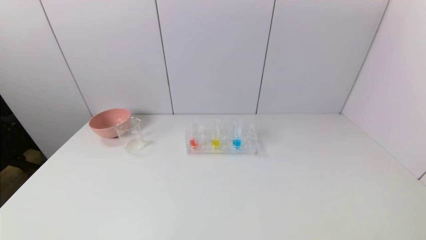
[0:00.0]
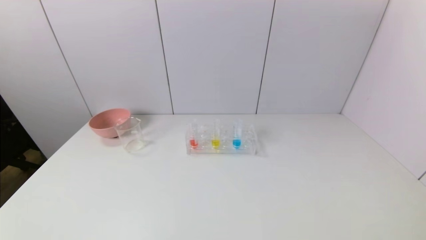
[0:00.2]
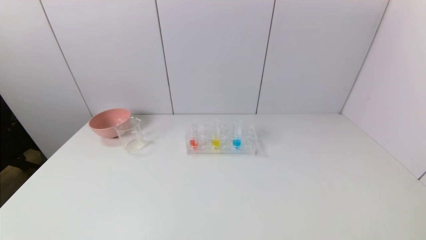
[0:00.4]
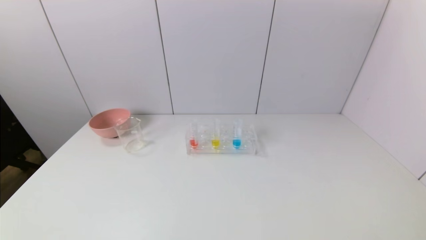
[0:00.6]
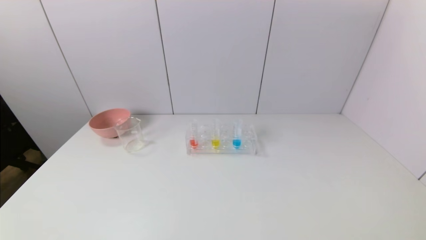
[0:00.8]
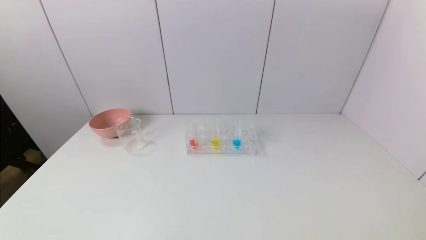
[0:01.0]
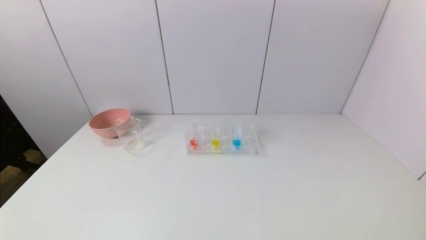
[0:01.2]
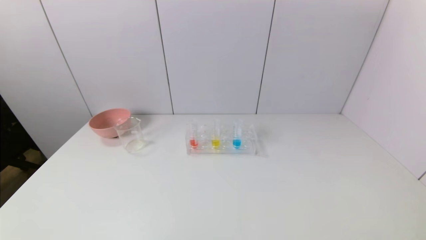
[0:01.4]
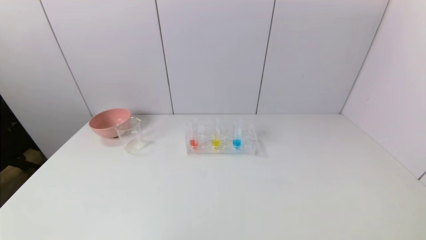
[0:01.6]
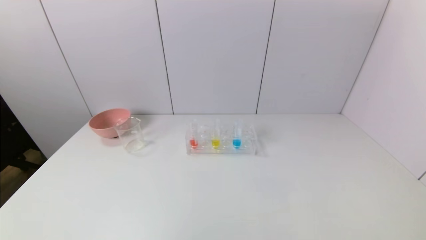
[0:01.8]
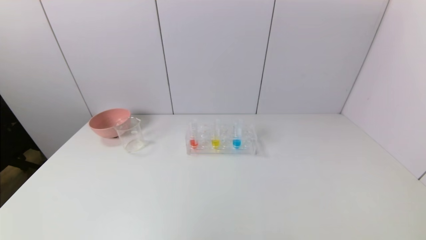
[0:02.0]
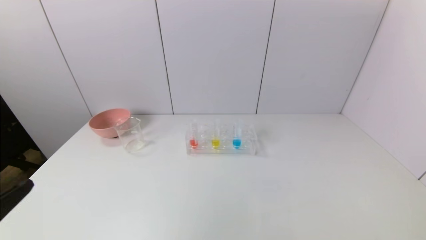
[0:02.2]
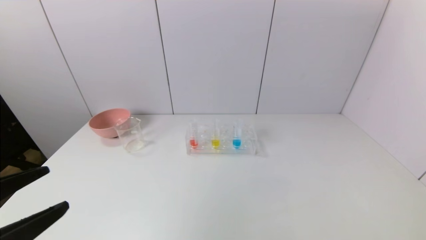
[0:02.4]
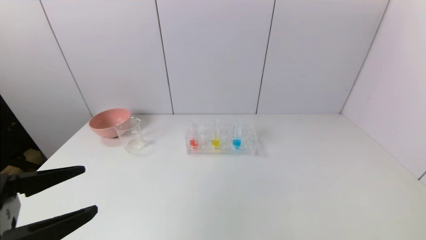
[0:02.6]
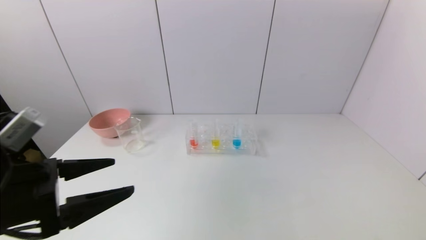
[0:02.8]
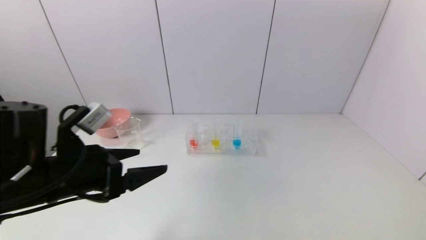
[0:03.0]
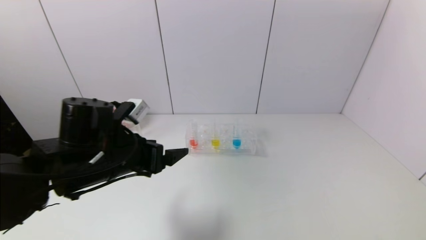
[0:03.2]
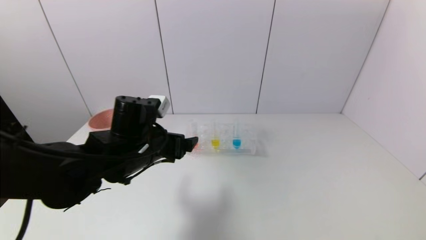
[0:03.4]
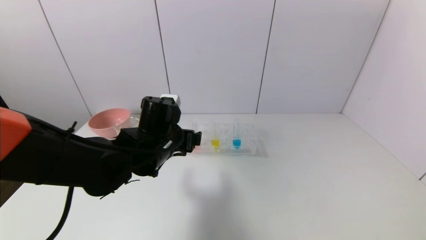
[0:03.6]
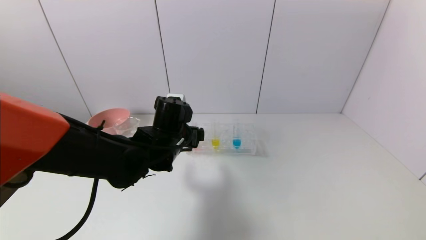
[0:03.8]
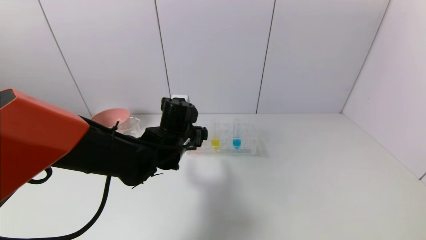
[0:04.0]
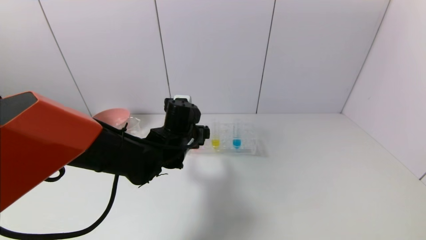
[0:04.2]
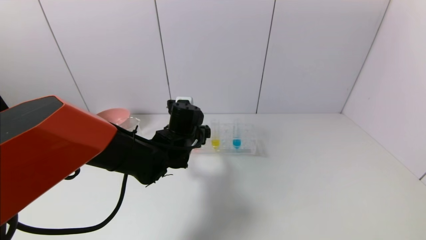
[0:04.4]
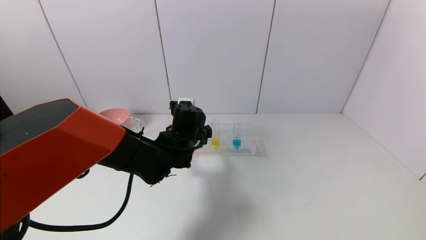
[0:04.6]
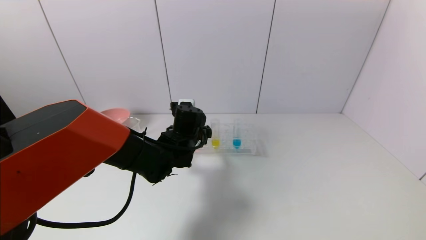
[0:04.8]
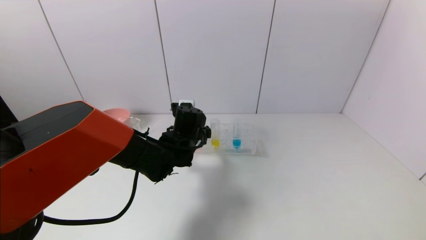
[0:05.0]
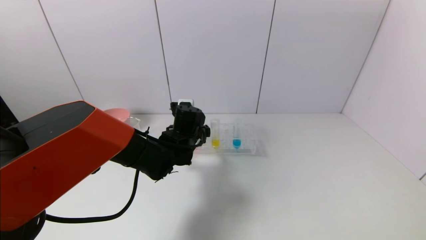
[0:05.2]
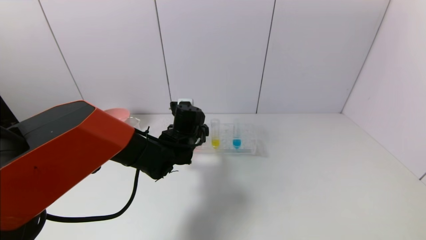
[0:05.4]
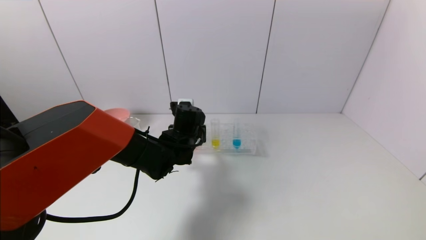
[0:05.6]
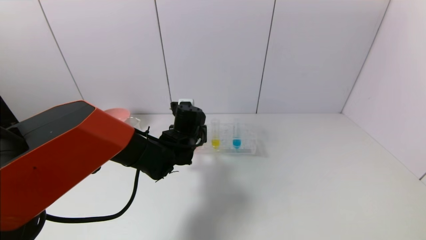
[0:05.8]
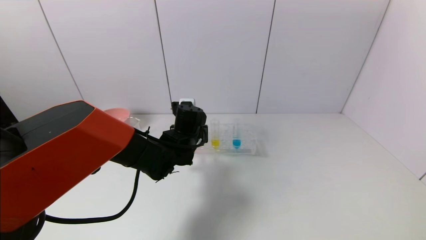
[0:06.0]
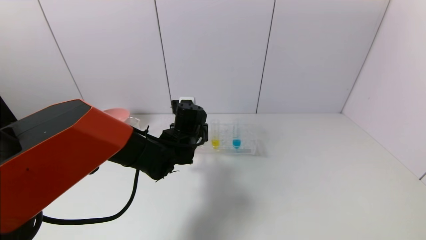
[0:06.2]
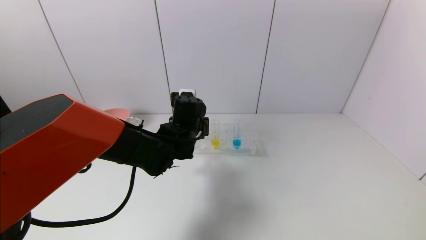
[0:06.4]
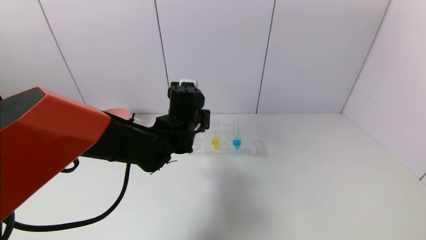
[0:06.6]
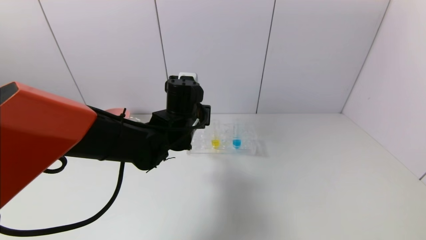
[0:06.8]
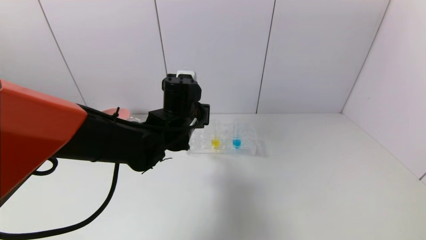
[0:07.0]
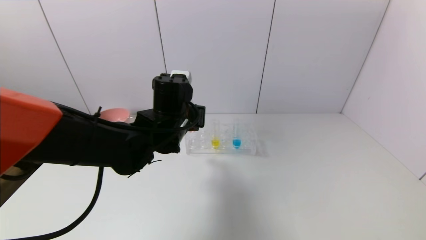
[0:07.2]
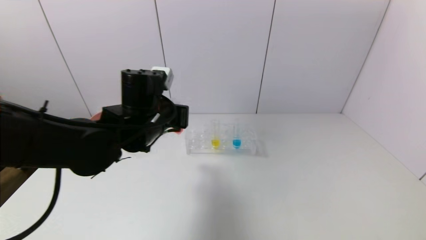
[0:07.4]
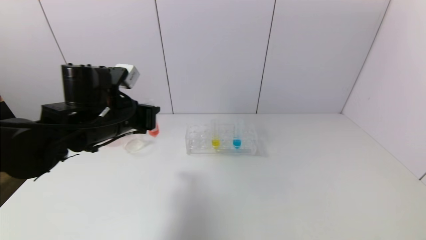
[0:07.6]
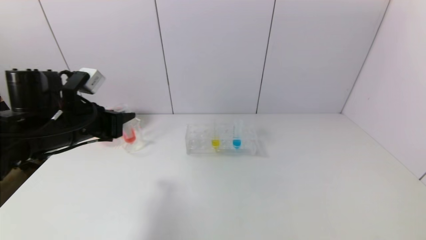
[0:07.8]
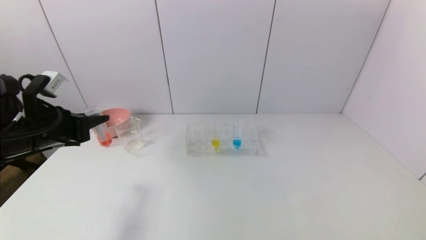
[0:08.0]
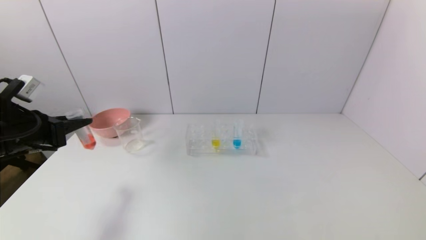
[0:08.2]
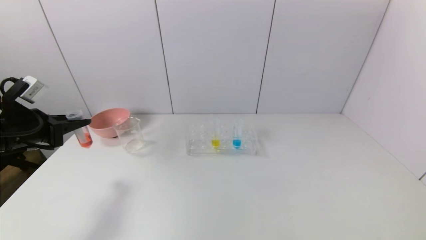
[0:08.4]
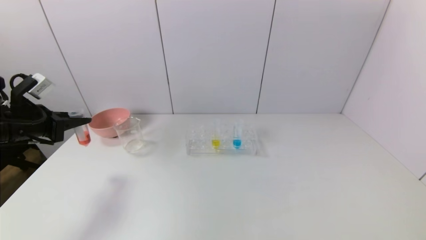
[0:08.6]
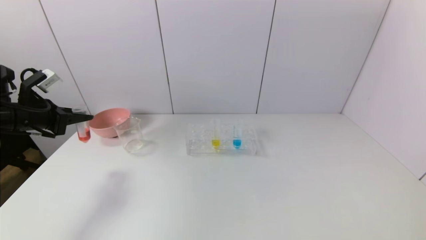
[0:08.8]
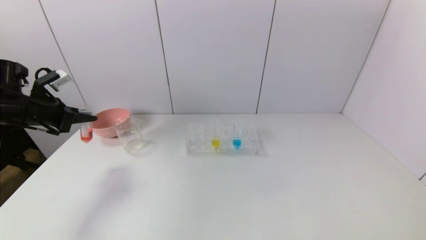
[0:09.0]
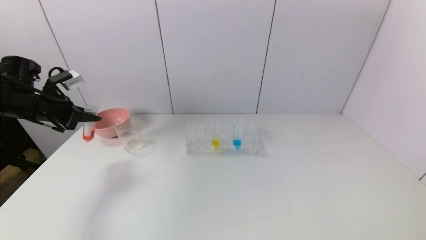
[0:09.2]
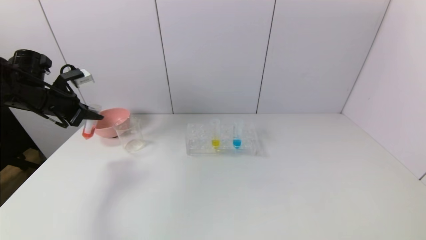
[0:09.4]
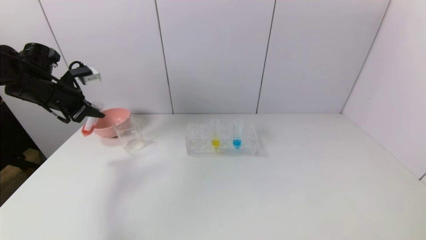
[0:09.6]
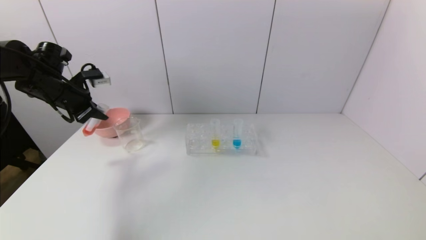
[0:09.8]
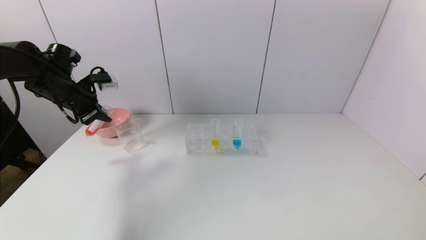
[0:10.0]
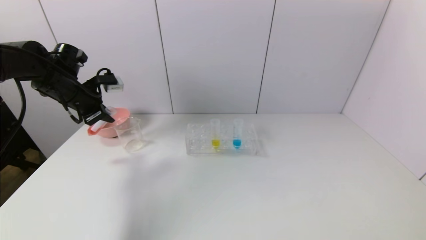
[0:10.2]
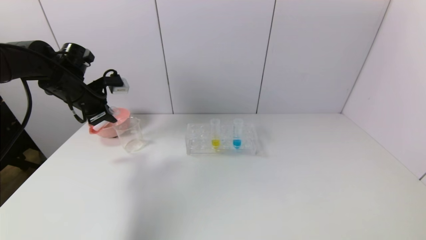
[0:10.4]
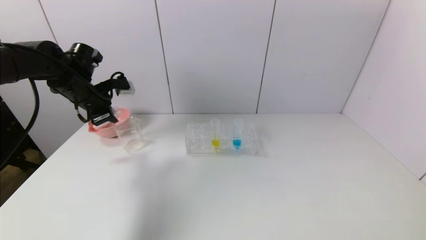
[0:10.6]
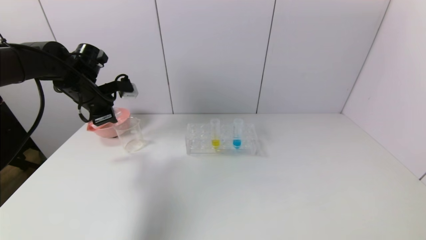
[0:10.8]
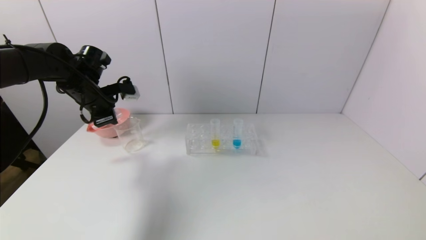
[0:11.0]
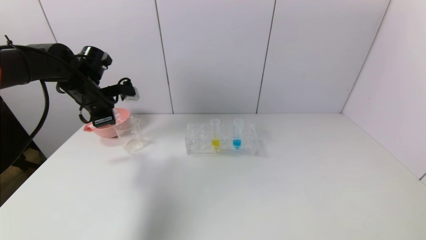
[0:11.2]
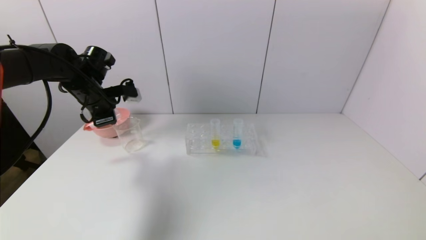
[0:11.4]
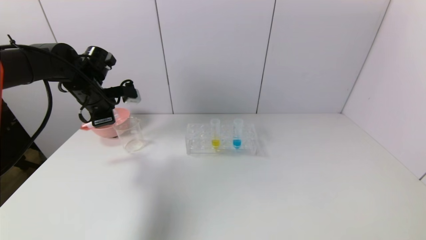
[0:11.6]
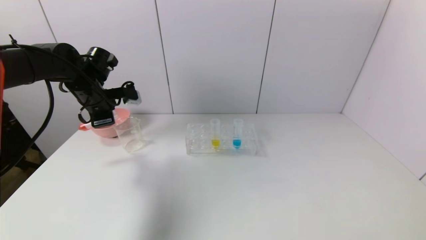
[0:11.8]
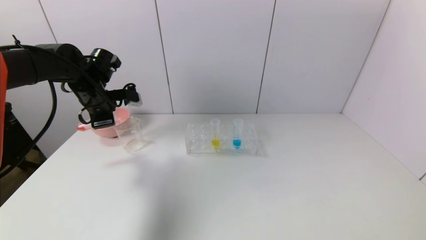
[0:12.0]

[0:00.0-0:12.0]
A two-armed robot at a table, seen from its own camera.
Task of the whole recording: pick up the test tube with yellow pigment and the test tube with red pigment by grippers and pour them into the beaker.
Step, 0:00.0 to 0:06.0: Grasp the red reagent with the left gripper.
0:01.6 to 0:03.0: The left gripper goes some 20 cm forward.
0:03.0 to 0:04.4: The left gripper is displaced forward, to the right and downward by about 20 cm.
0:04.4 to 0:06.0: The left gripper closes.
0:06.0 to 0:07.6: The left gripper moves to the left, upward and backward, approximately 20 cm.
0:07.6 to 0:09.0: The left gripper is displaced to the left by approximately 20 cm.
0:09.0 to 0:10.4: The left gripper travels to the right and forward by about 10 cm.

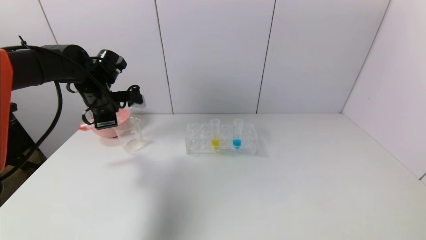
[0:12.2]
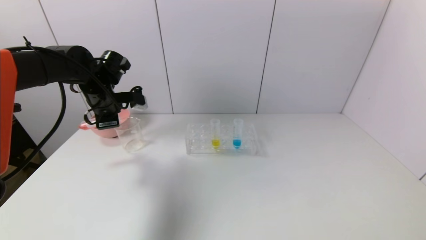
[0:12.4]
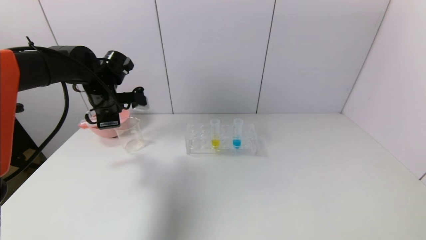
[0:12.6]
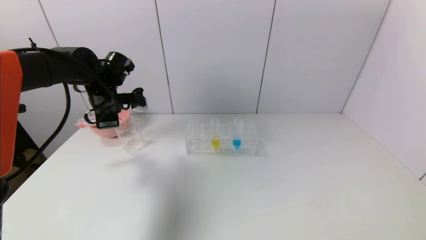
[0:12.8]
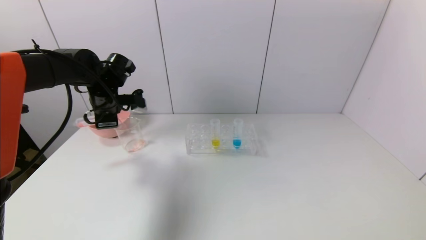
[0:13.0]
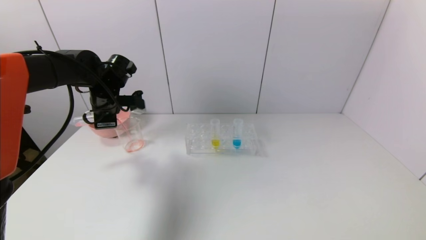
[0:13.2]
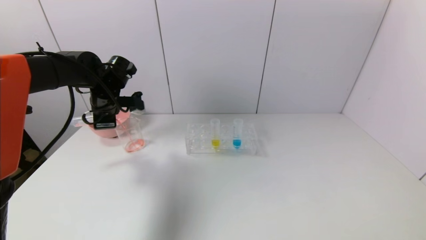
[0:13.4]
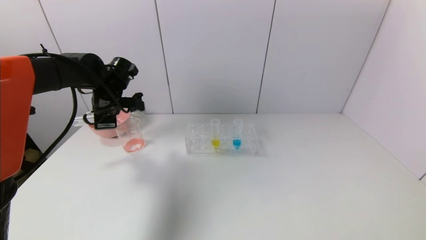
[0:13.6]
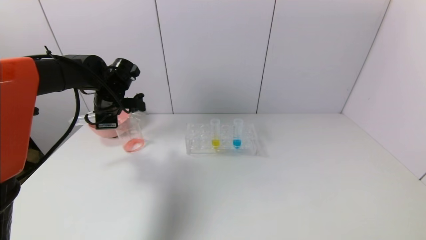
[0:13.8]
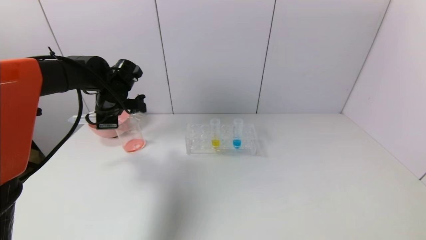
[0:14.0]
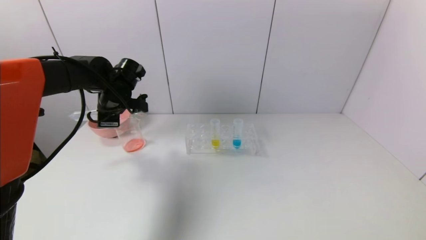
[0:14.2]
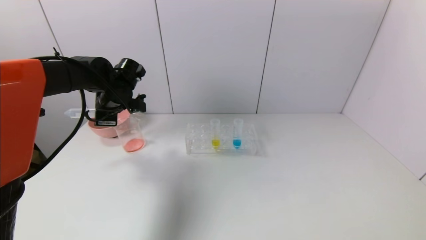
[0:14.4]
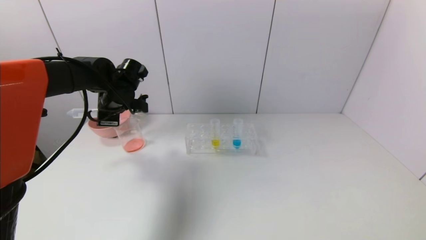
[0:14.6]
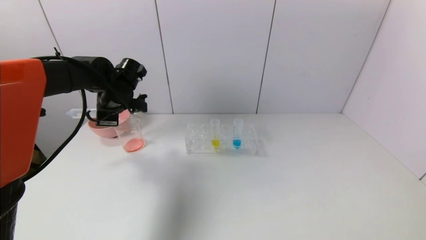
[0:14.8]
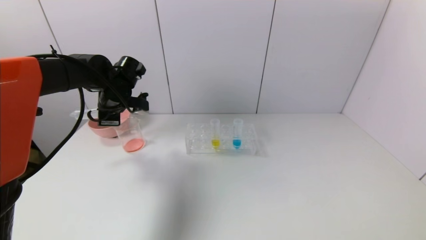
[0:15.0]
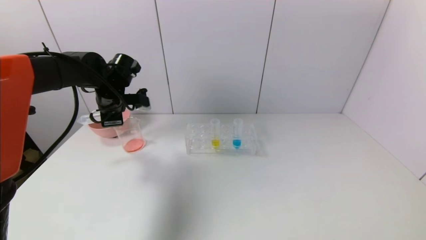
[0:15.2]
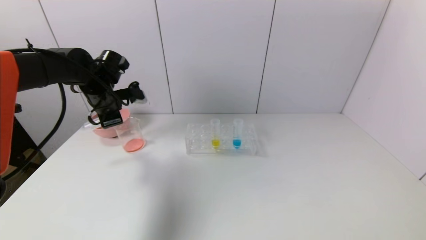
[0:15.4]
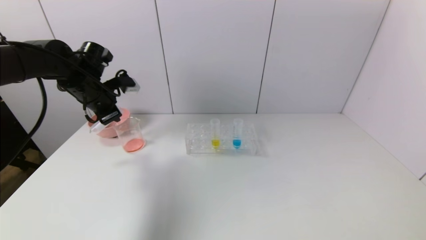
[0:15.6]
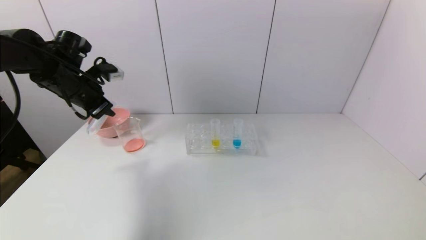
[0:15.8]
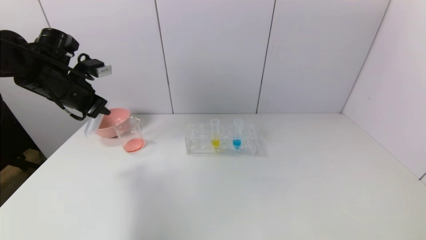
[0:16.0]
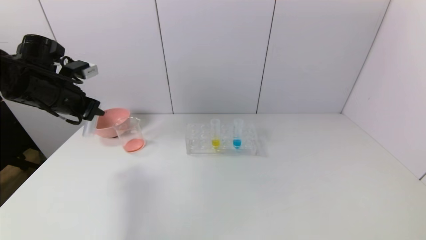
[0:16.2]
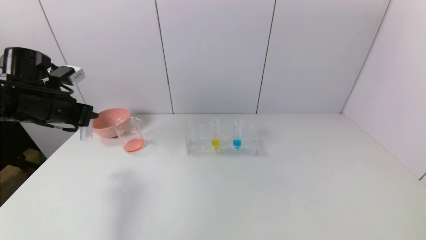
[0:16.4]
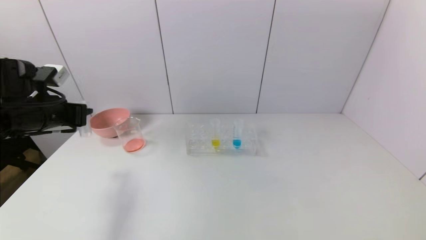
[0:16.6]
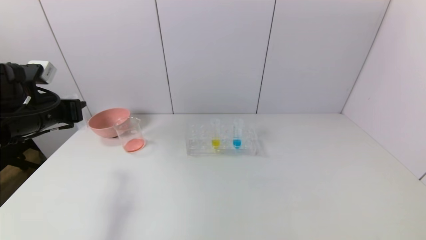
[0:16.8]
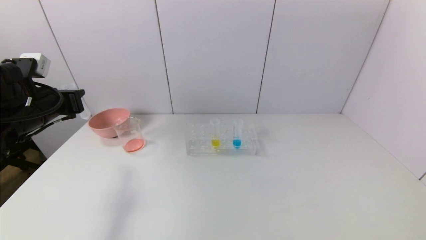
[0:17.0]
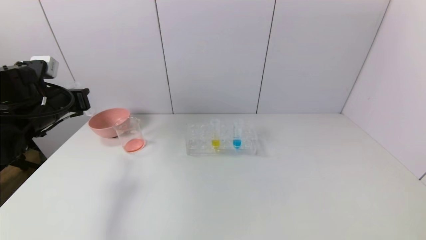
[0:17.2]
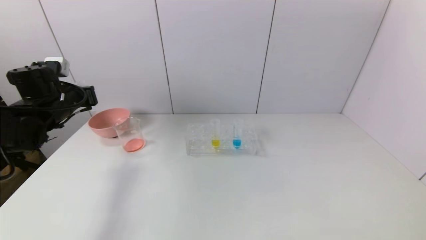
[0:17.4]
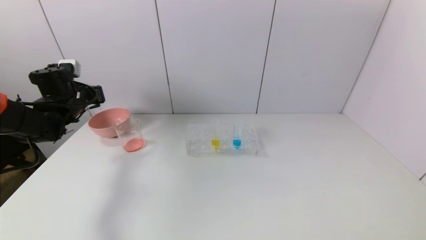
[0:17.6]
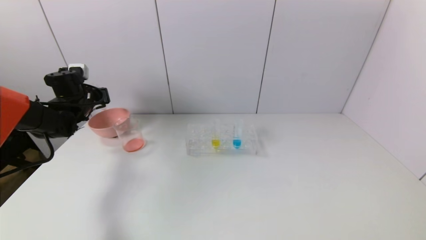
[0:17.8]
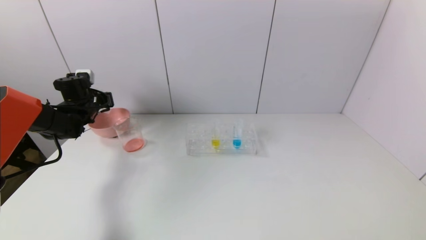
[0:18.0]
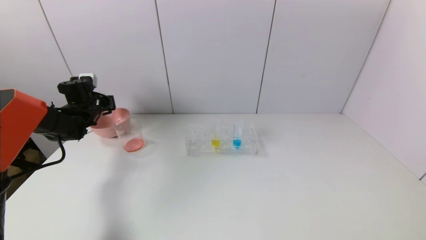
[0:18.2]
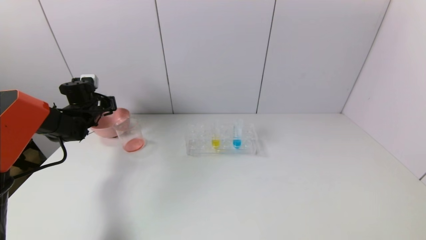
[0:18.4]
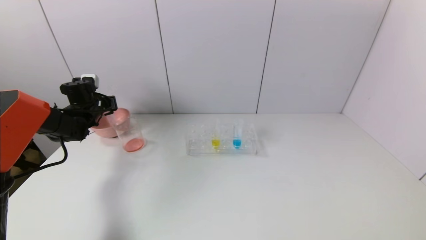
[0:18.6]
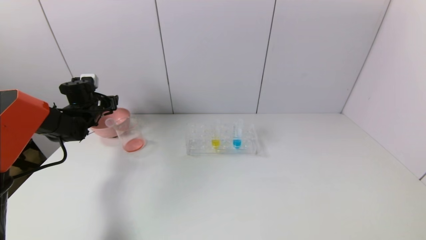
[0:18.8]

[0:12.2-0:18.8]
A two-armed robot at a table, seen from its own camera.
Task of the whole recording: pick up the test tube with yellow pigment and the test tube with red pigment by grippers and pour them into the beaker.
Step, 0:12.2 to 0:14.4: Pour the red reagent into the graduated cylinder with the left gripper.
0:12.2 to 0:13.8: The grippers stay close to where they were, moving slightly.
0:13.8 to 0:15.4: The grippers stay close to where they were, moving slightly.
0:15.4 to 0:17.2: The left gripper is displaced to the left and backward by some 10 cm.
0:17.2 to 0:18.8: The left gripper is displaced forward and downward by approximately 15 cm, and opens its fingers.
